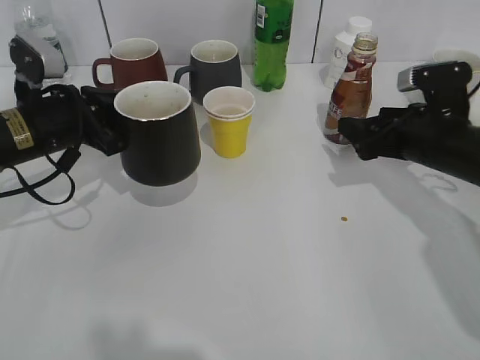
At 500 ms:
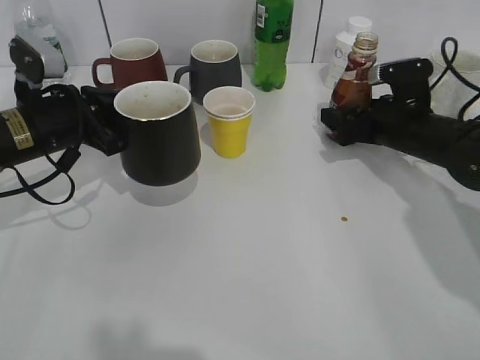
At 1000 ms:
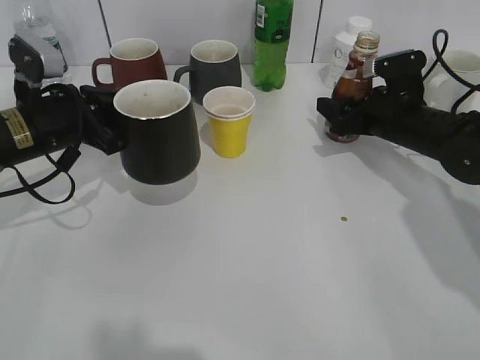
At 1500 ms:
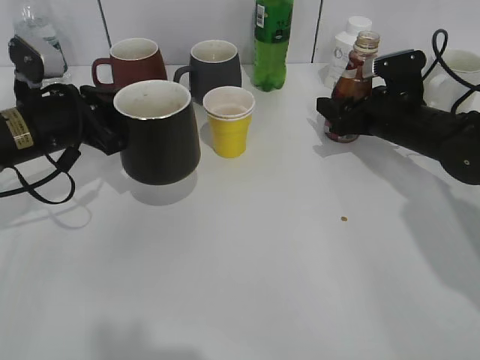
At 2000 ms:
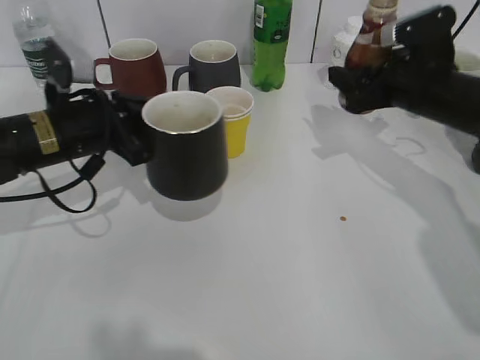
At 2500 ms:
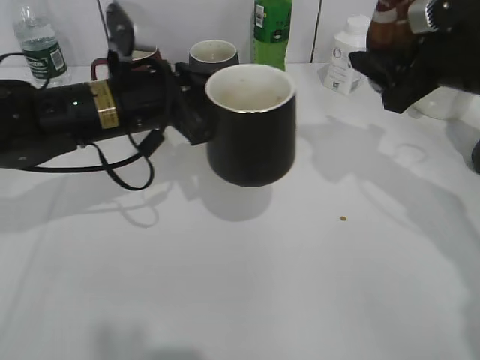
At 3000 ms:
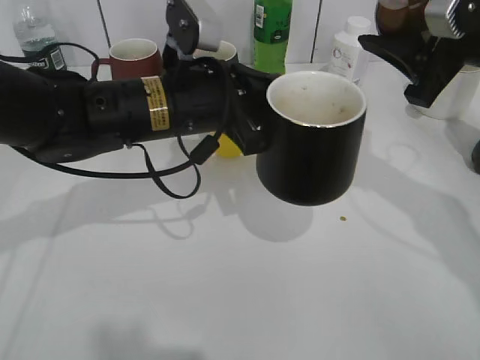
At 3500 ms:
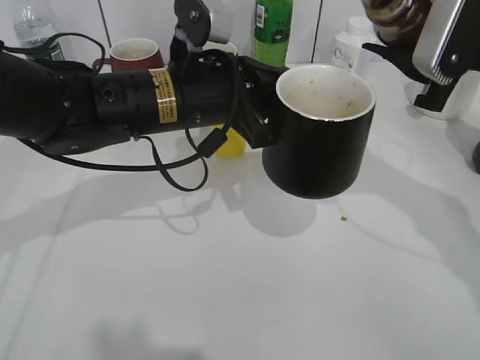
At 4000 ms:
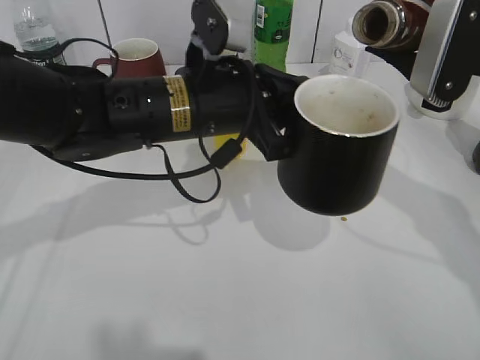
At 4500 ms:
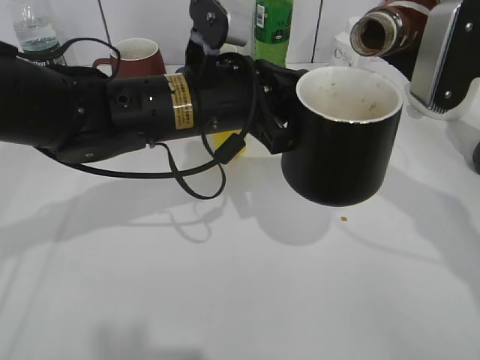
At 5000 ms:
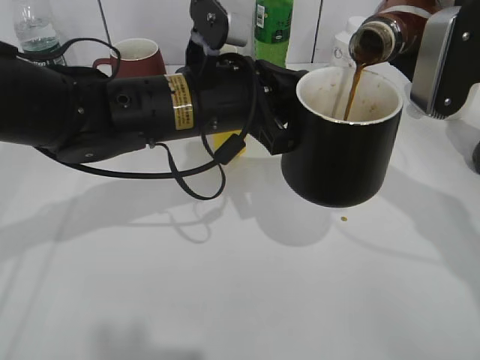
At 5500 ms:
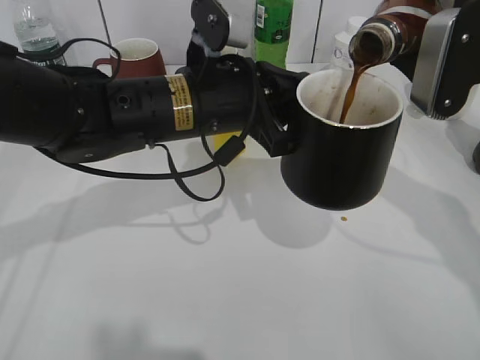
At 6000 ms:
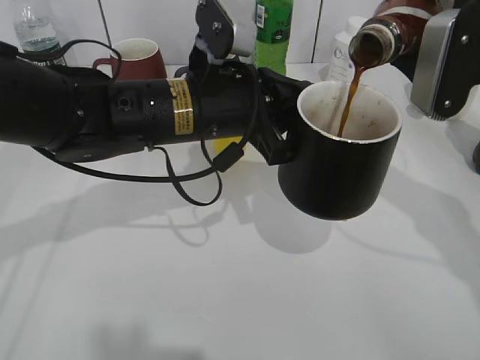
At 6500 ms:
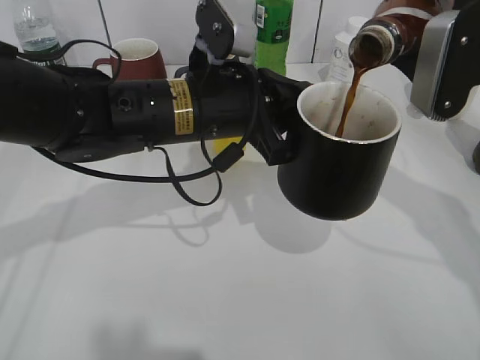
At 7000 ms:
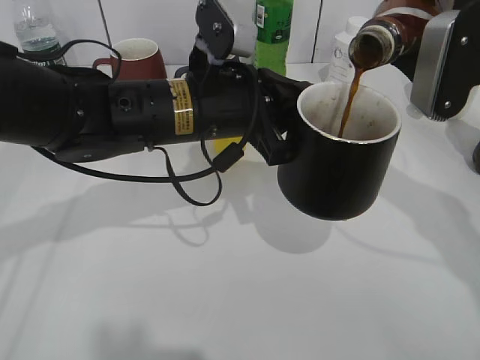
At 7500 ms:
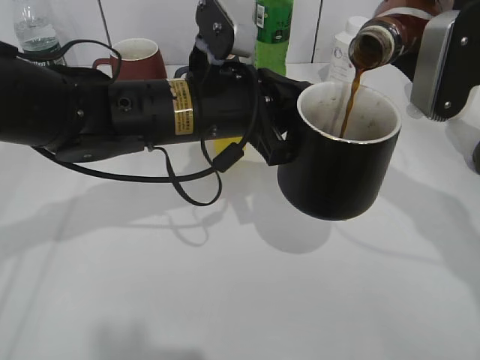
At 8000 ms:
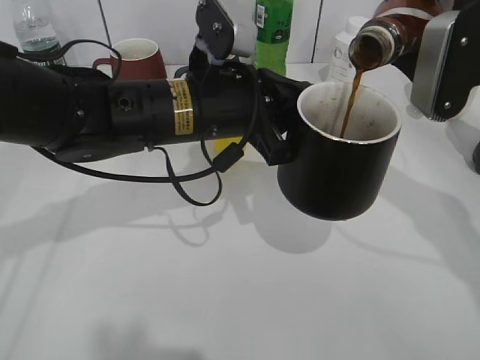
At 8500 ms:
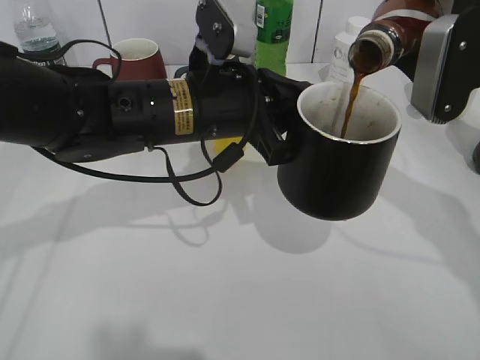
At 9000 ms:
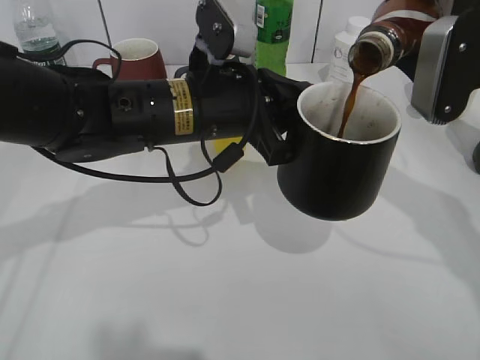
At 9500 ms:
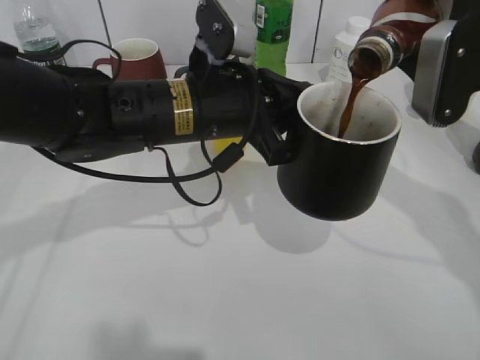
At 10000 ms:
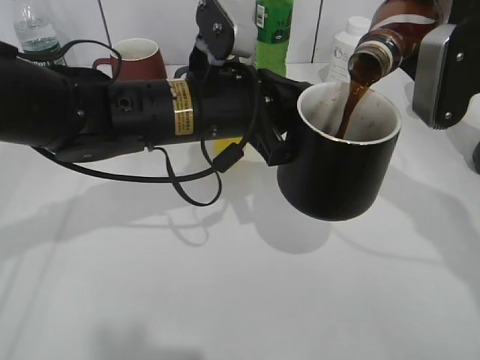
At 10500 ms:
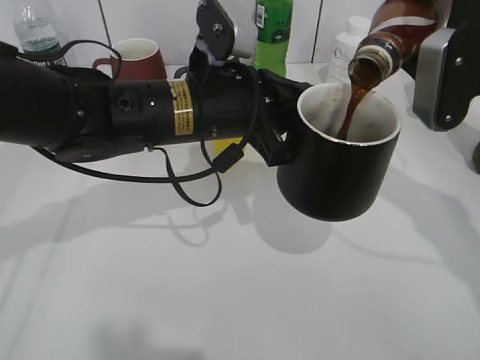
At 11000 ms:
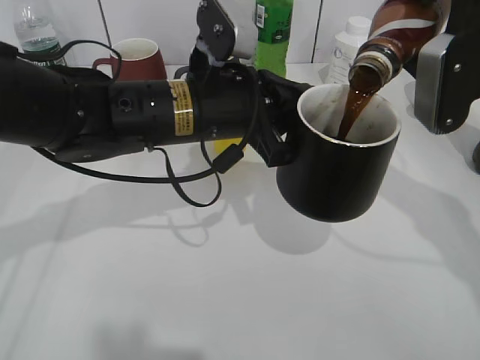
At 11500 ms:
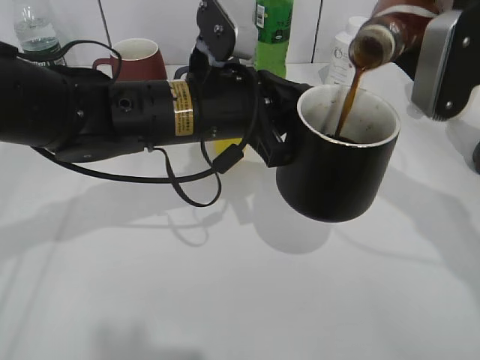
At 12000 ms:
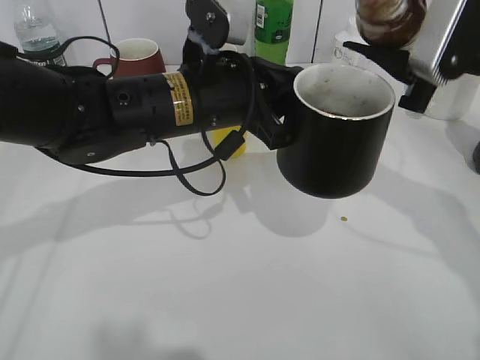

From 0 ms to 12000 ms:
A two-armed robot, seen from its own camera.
Step, from 1500 ms to 11500 ms: Pour the coffee from bottle to cup with right gripper.
From 0 ms to 2000 ms: The right gripper moves some 5 cm, and closes up.
From 2000 ms to 4000 ms: The right gripper goes approximately 15 cm upward and backward; the left gripper is displaced to the right by roughly 15 cm.
From 4000 ms to 6000 ms: The grippers make only small movements.
From 6000 ms to 8000 ms: Both grippers stay put.
From 8000 ms to 10000 ms: There are only small adjustments of the grippers.

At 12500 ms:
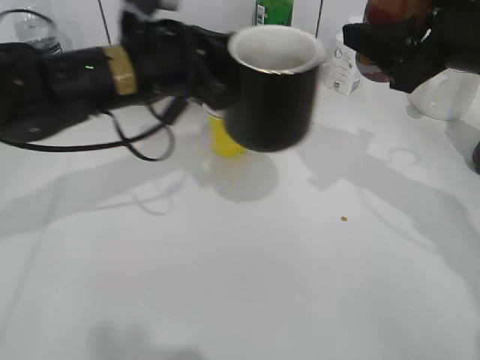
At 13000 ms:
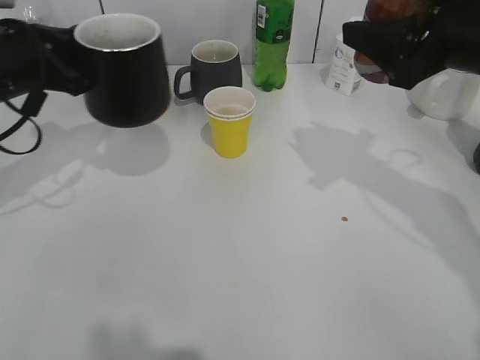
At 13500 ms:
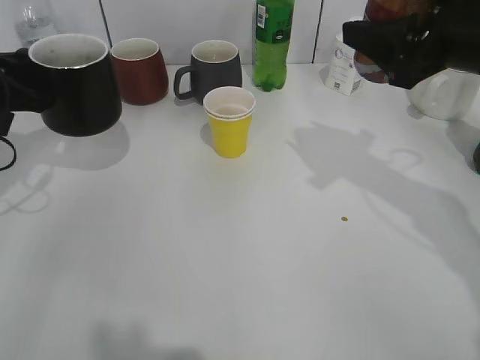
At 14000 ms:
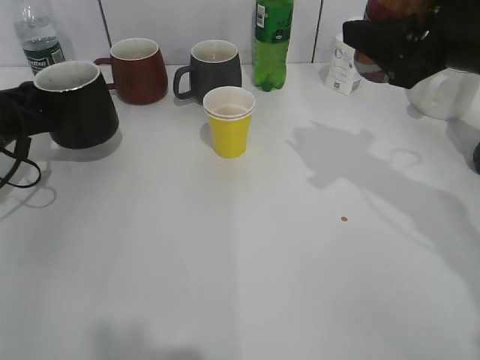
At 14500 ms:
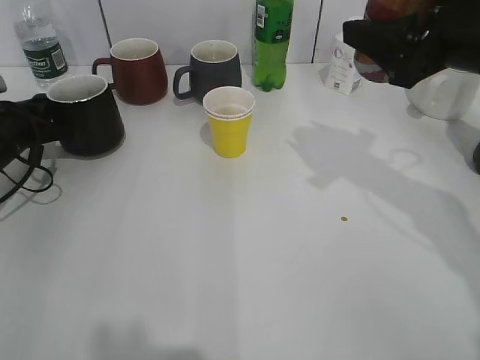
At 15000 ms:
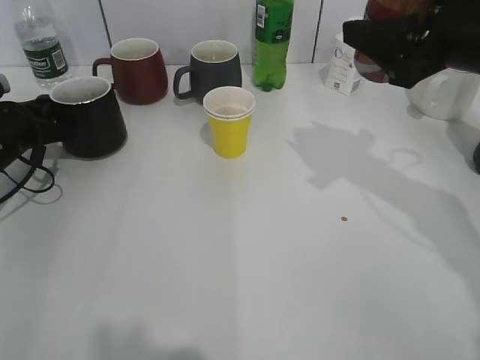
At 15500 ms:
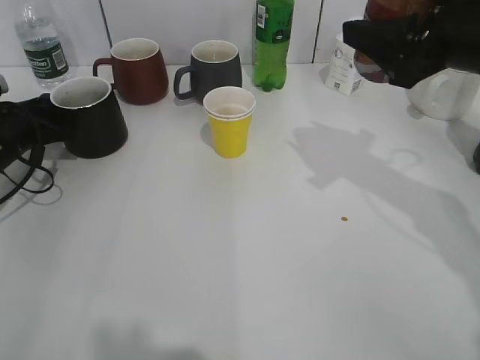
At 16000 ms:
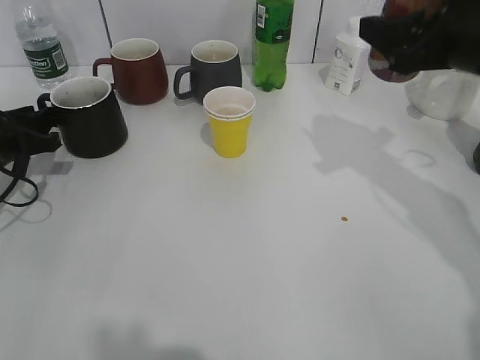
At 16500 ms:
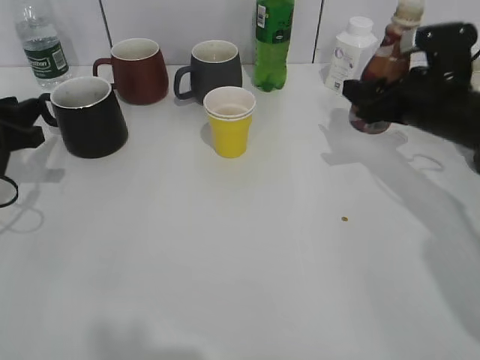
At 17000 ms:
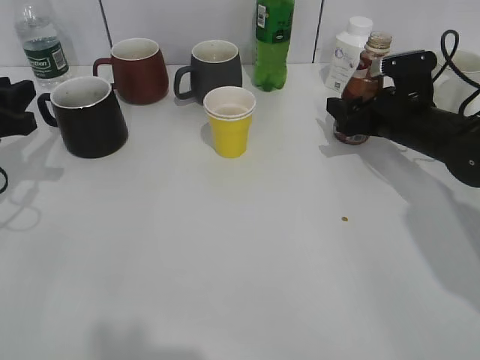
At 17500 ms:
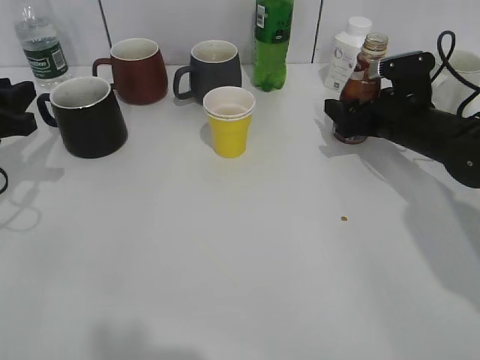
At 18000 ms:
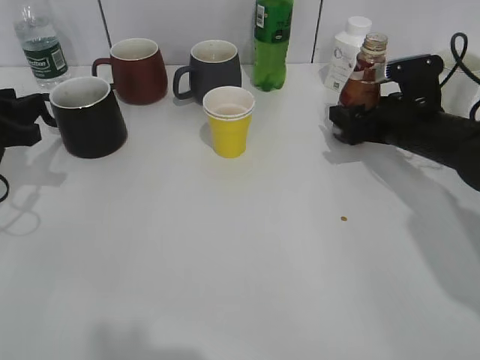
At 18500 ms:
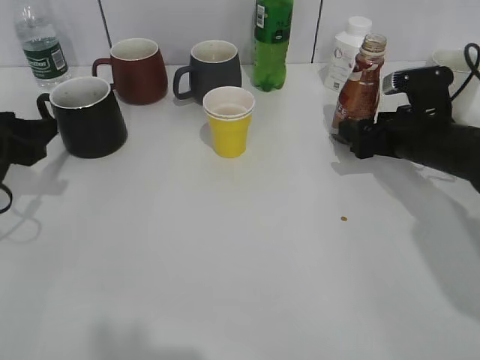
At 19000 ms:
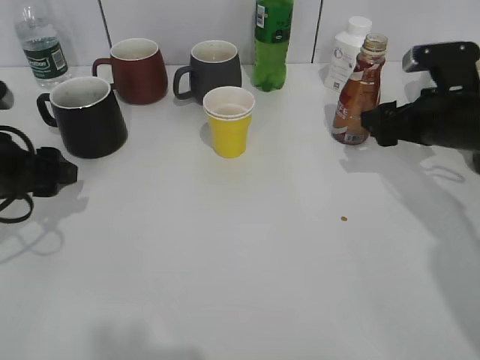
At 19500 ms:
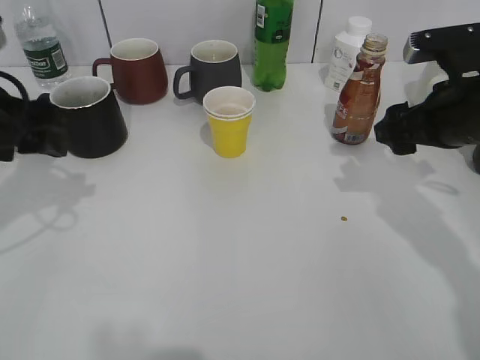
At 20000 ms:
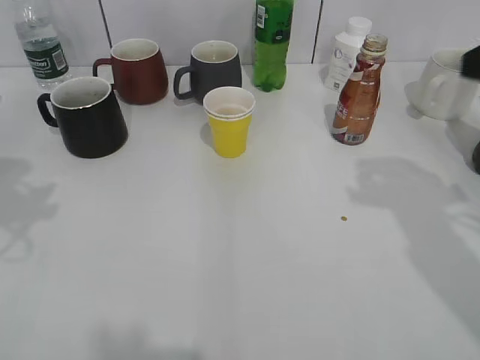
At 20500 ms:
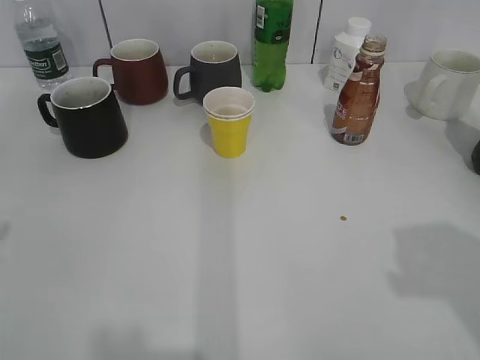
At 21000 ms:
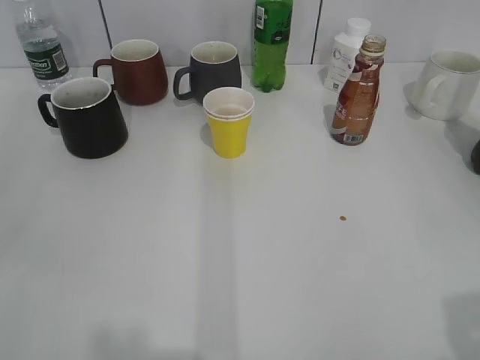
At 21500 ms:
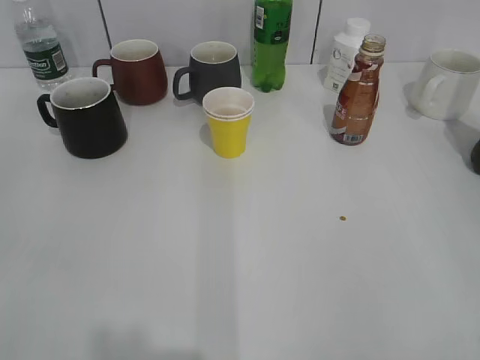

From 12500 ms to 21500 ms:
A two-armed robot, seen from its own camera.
Step, from 12500 ms to 16000 ms: Place the black cup on the table with left gripper.
Step, from 16500 ms to 18000 ms: Place the coffee bottle on the table with right gripper.
From 12500 ms to 14500 ms: The left gripper moves to the left and downward, some 25 cm.
From 14500 ms to 17000 ms: The right gripper heads downward and forward, covering some 20 cm. The left gripper heads backward and upward, covering approximately 10 cm, and opens.
From 17000 ms to 19500 ms: The left gripper goes some 10 cm upward and to the right, and opens, while the right gripper goes about 10 cm backward and upward, and opens its fingers.
From 19500 ms to 21500 ms: The grippers both shift backward by about 30 cm.

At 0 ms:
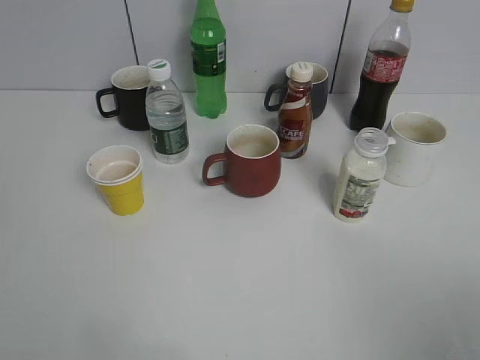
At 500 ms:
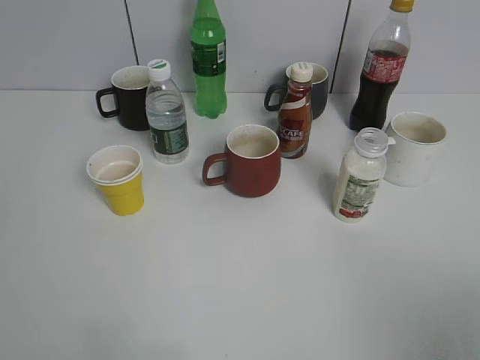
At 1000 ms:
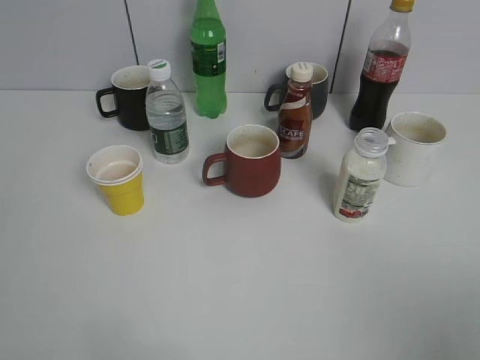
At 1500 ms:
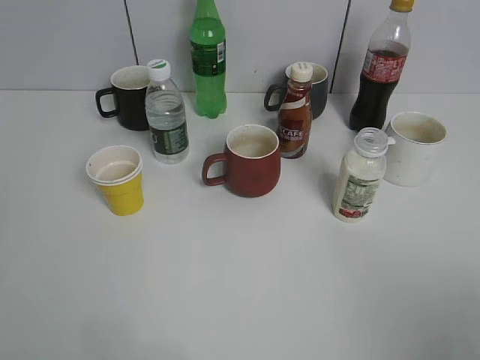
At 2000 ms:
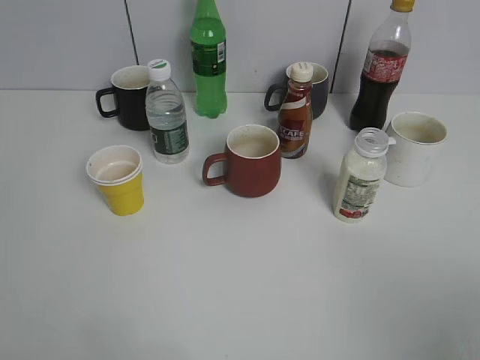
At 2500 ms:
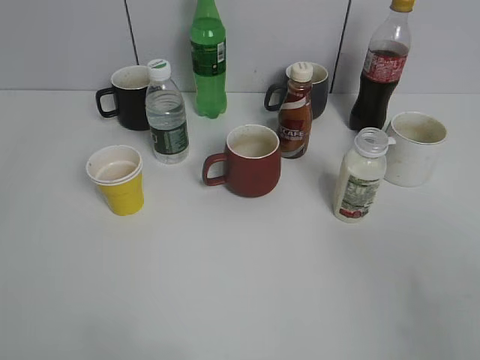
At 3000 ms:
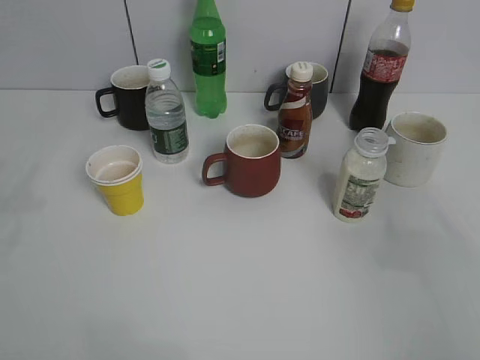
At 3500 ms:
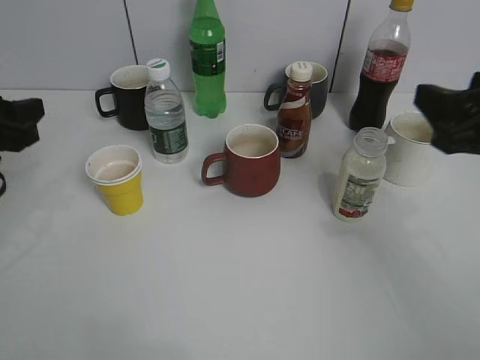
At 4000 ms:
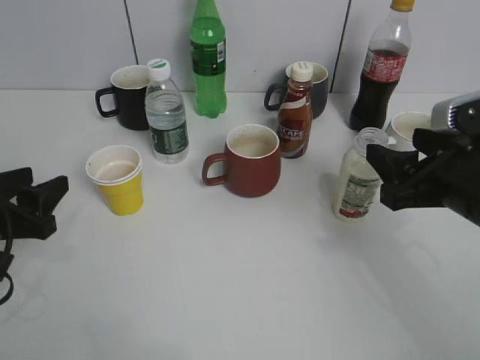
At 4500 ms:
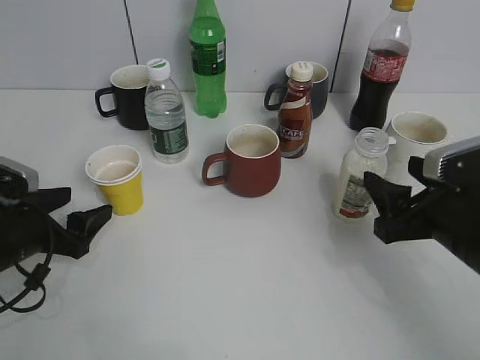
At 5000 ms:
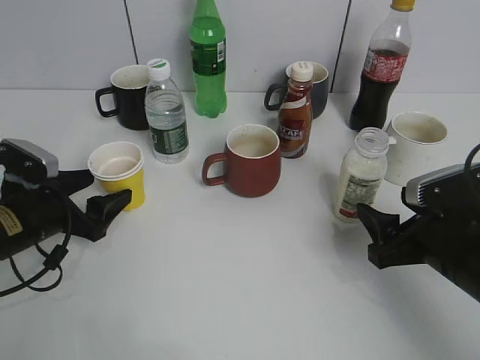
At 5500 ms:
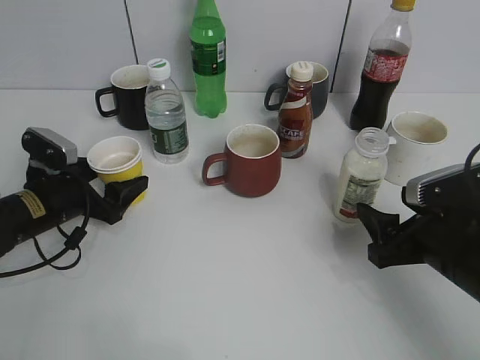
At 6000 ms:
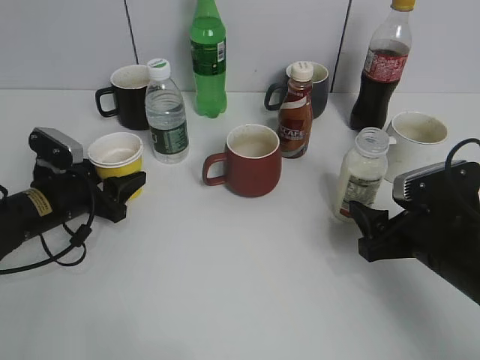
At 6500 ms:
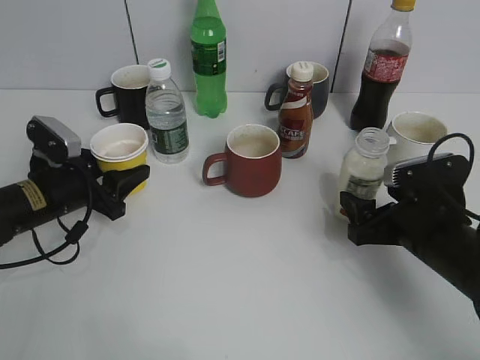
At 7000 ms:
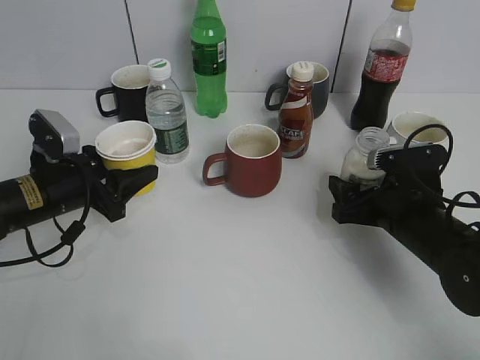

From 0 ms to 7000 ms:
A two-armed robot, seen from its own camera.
Step, from 3500 ms to 6000 ms: Grasp the yellow paper cup with left gripper.
From 2000 ms to 3500 ms: The grippers both shift forward by about 25 cm.
From 3500 ms to 5000 ms: Both grippers move downward, some 15 cm. The left gripper opens its fingers.
From 5000 ms to 7000 ms: The right gripper shifts roughly 5 cm forward, and opens its fingers. The left gripper closes up.
